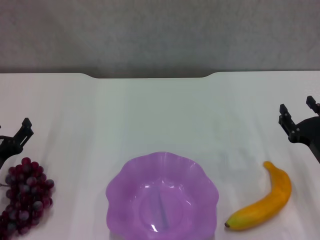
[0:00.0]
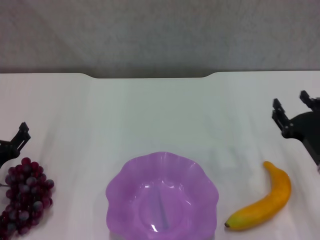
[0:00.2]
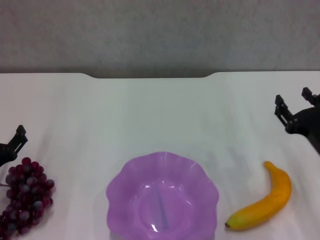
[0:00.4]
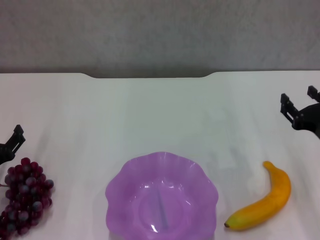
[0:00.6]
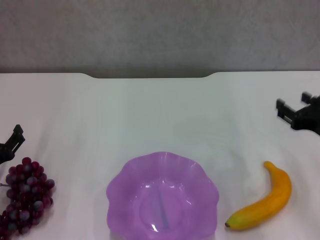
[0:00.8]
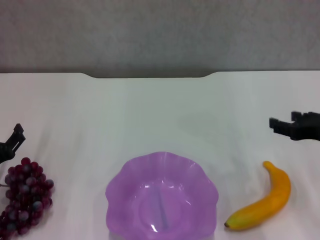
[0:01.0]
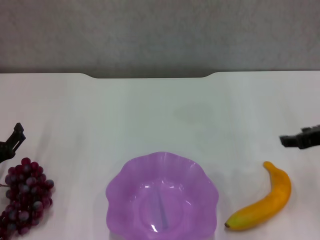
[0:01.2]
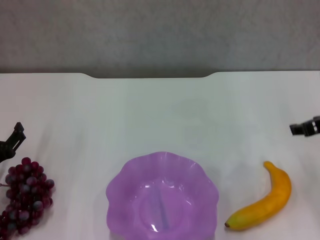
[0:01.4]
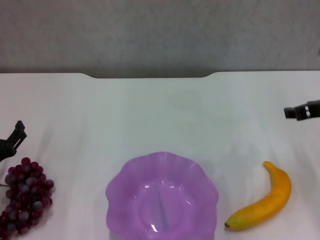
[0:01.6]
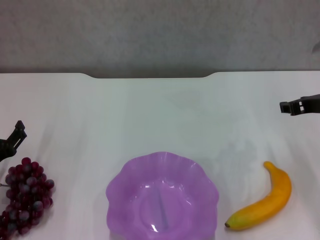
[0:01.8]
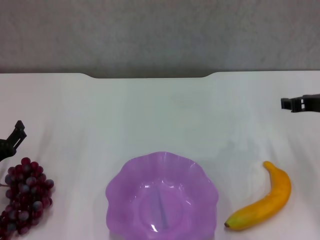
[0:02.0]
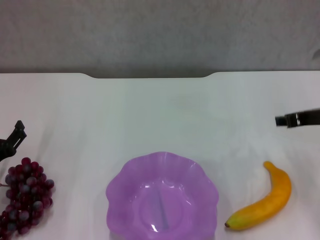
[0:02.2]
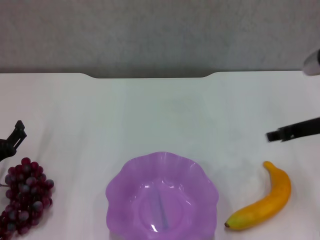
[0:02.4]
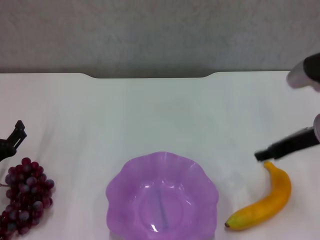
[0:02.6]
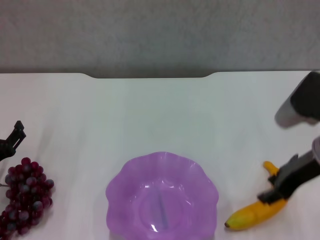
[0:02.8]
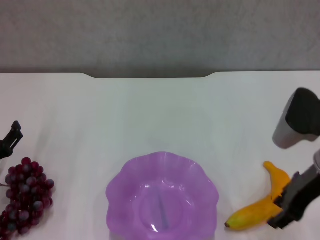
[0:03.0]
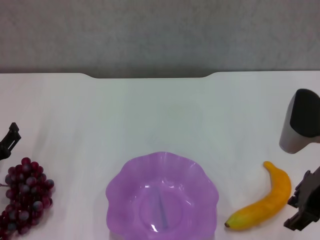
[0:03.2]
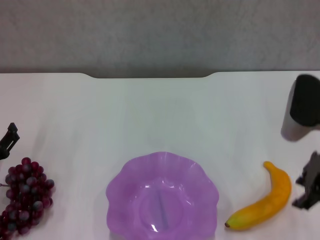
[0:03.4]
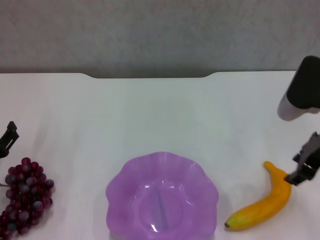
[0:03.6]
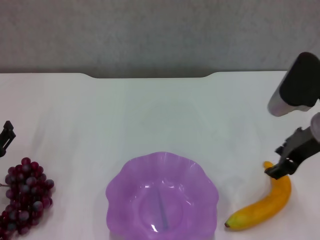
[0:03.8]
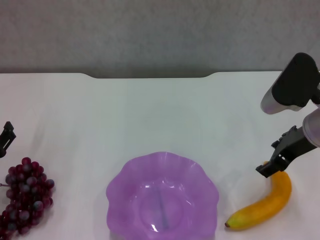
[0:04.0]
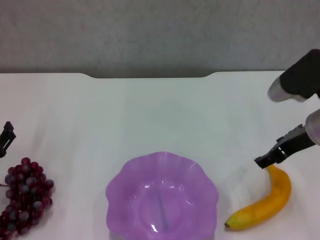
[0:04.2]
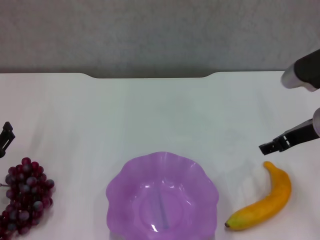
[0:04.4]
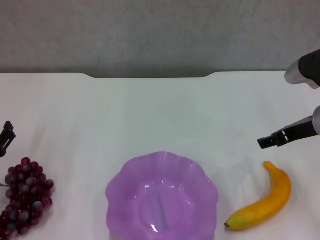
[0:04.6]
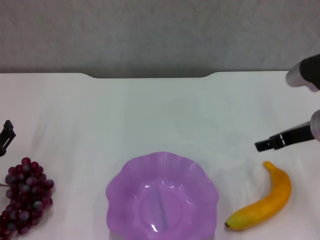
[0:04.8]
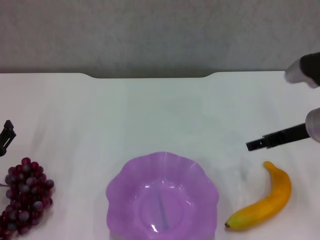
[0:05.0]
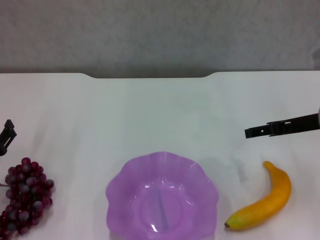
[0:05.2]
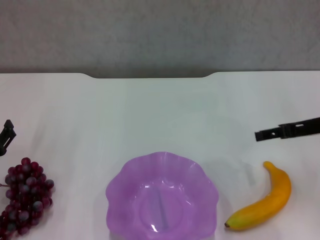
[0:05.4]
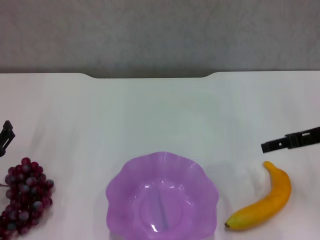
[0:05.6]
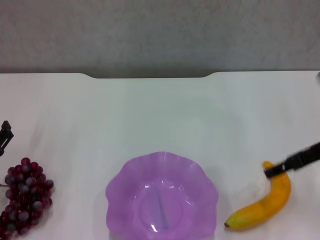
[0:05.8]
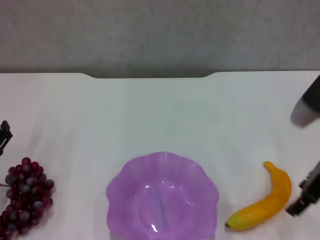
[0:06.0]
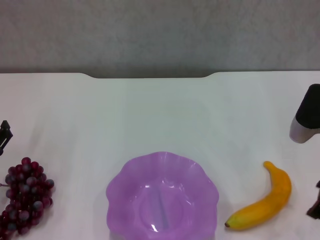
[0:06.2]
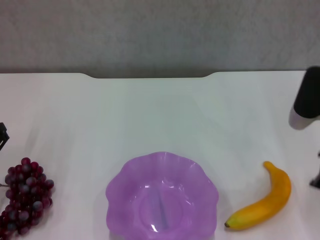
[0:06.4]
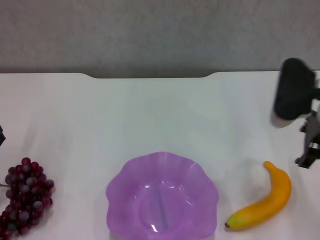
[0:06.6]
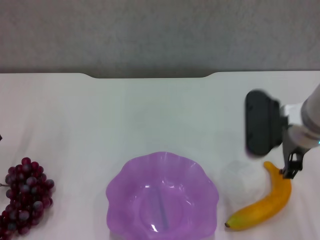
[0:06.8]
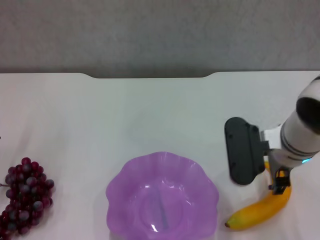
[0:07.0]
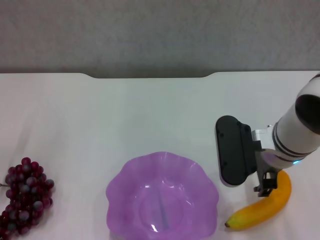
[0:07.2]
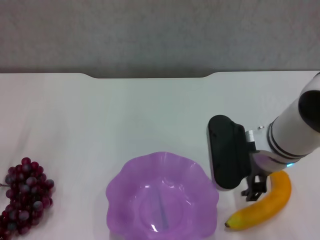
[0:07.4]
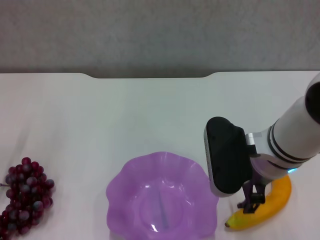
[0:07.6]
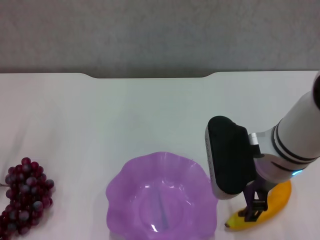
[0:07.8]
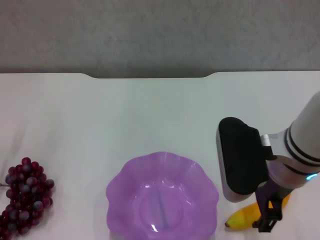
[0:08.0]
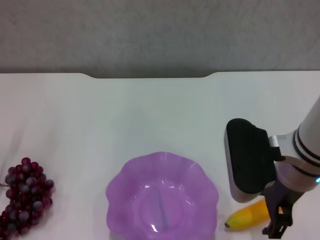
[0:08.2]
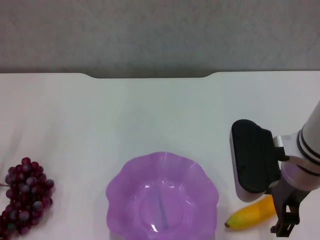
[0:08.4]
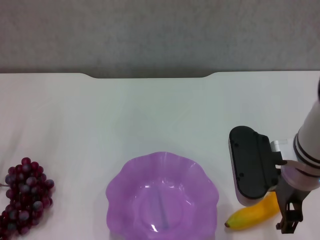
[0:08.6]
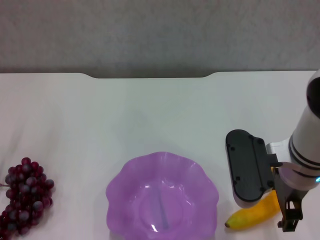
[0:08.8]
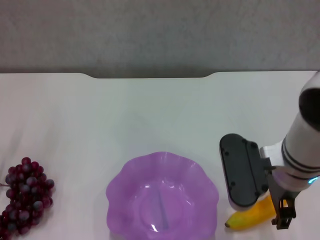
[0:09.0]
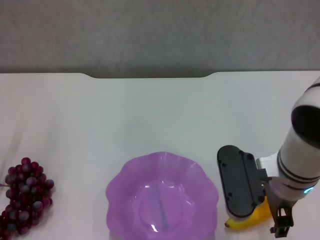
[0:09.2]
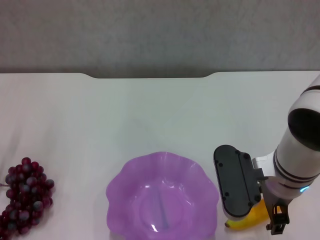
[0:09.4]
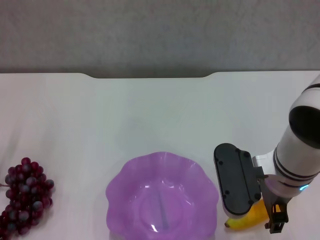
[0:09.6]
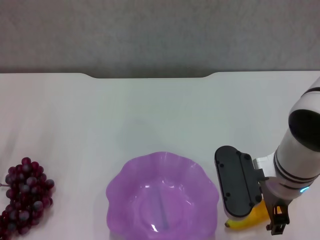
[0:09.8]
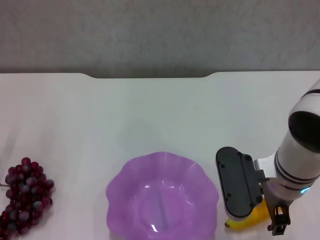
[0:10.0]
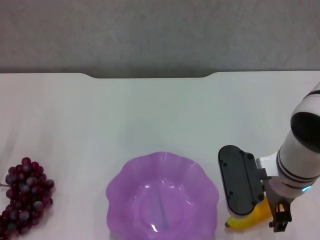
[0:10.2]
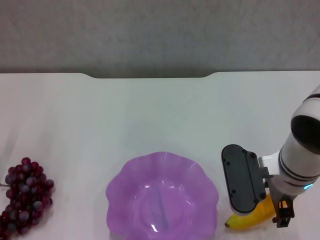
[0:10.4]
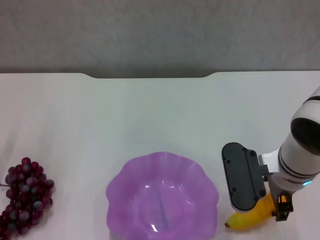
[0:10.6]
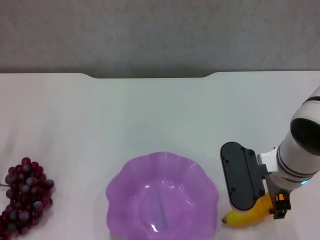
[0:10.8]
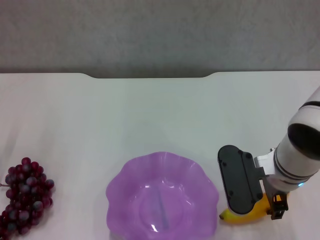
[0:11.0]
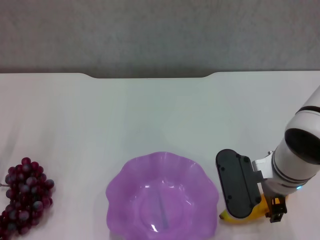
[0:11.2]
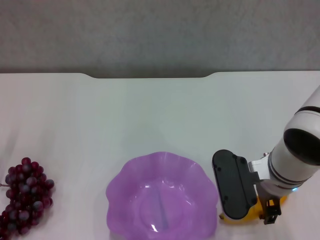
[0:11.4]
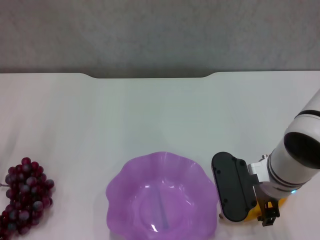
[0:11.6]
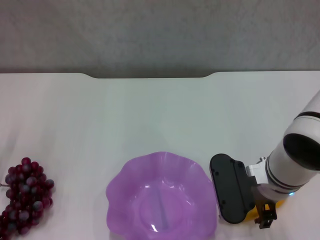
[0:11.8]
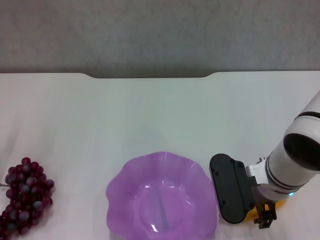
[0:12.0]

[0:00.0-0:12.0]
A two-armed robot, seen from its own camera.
0:00.0 to 0:01.6: The right gripper heads upward and forward, covering approximately 15 cm.
0:01.6 to 0:03.0: The right gripper ends up approximately 5 cm from where it was.
0:03.0 to 0:04.4: The right gripper opens.
0:06.0 to 0:07.6: The right gripper is displaced to the left by some 15 cm.
0:07.6 to 0:10.4: There are only small adjustments of the grippers.
0:10.4 to 0:12.0: The grippers move only a little.

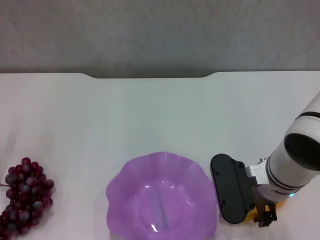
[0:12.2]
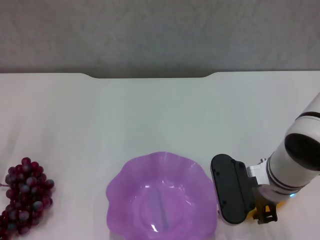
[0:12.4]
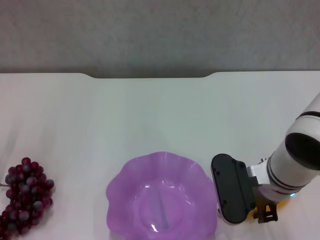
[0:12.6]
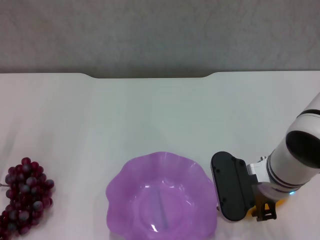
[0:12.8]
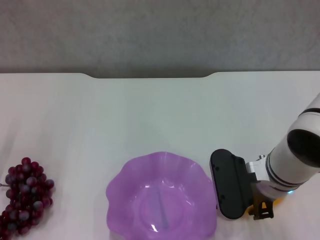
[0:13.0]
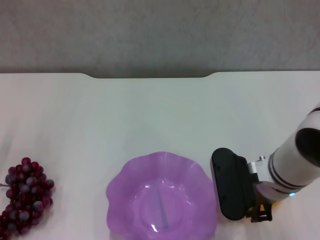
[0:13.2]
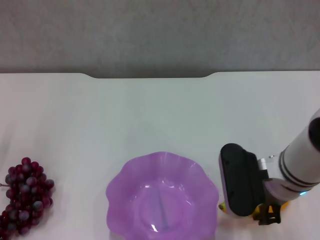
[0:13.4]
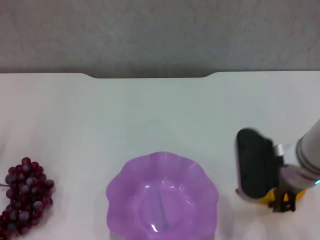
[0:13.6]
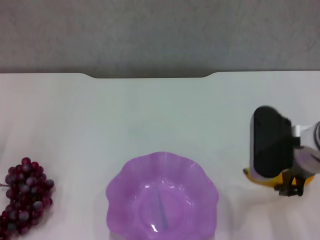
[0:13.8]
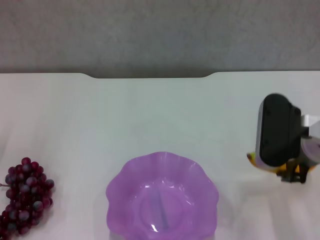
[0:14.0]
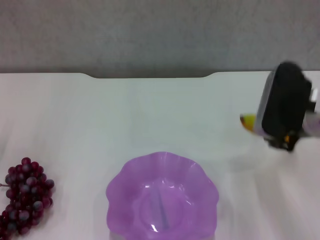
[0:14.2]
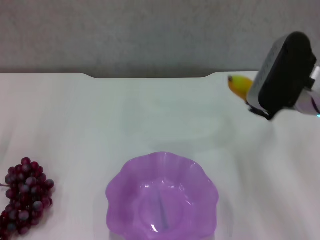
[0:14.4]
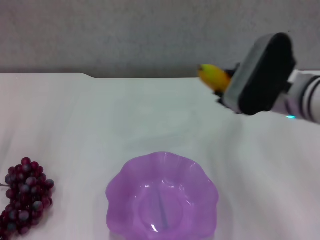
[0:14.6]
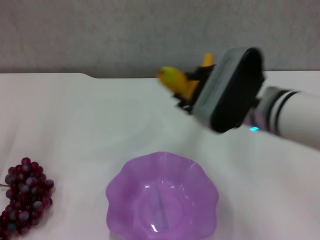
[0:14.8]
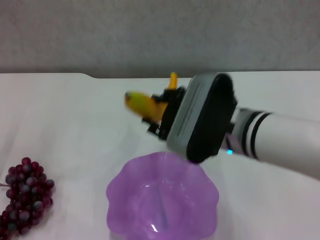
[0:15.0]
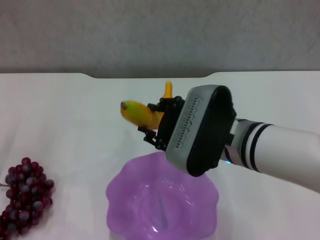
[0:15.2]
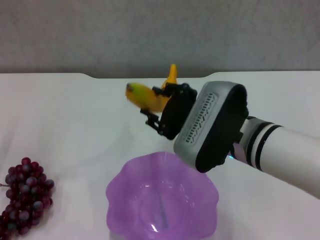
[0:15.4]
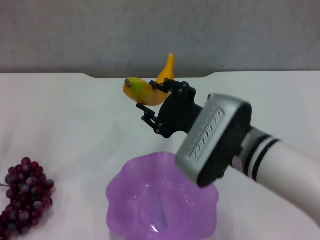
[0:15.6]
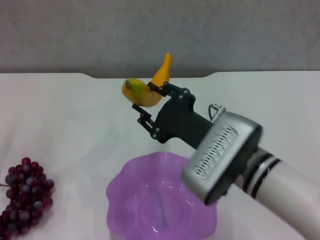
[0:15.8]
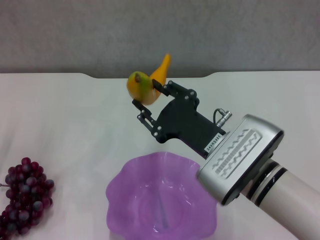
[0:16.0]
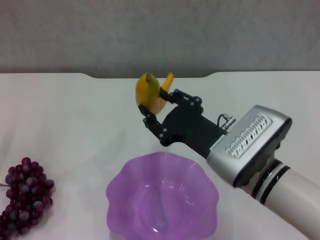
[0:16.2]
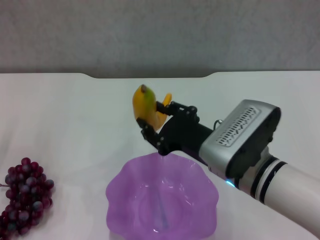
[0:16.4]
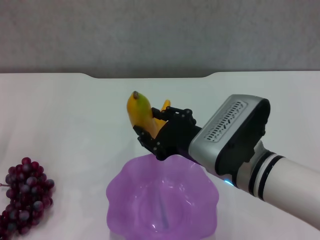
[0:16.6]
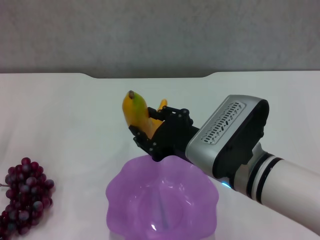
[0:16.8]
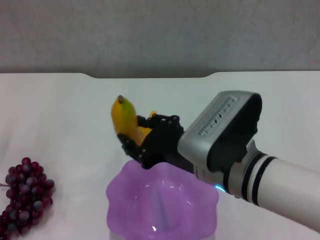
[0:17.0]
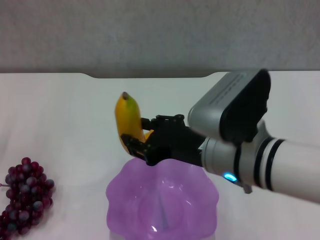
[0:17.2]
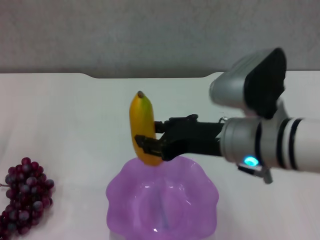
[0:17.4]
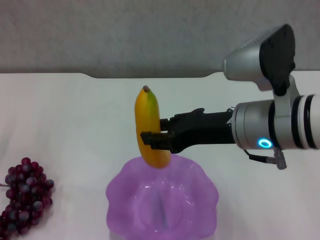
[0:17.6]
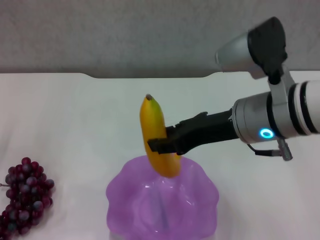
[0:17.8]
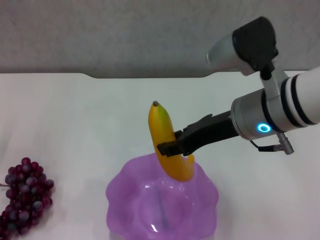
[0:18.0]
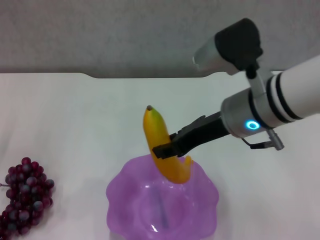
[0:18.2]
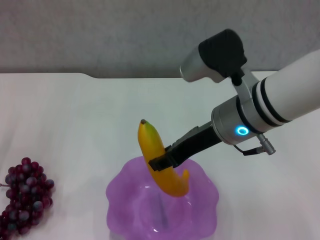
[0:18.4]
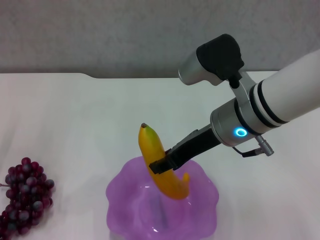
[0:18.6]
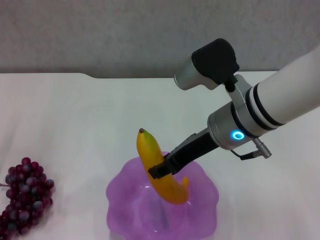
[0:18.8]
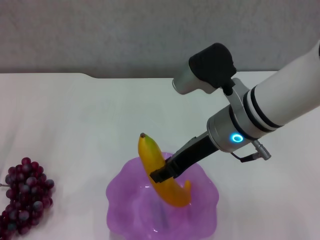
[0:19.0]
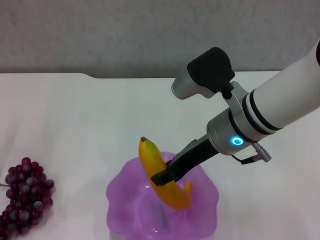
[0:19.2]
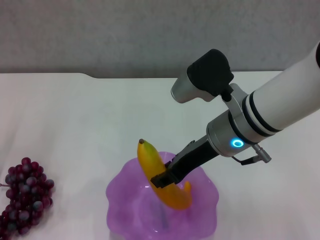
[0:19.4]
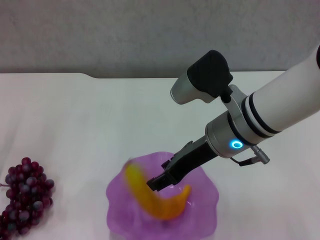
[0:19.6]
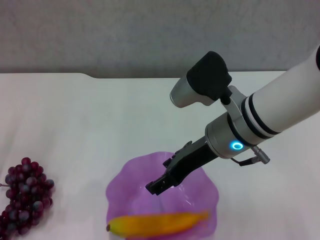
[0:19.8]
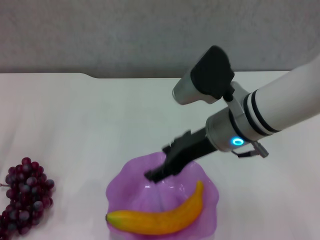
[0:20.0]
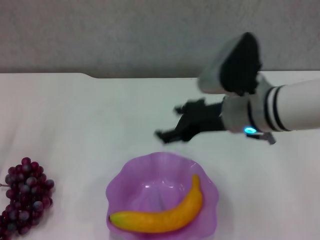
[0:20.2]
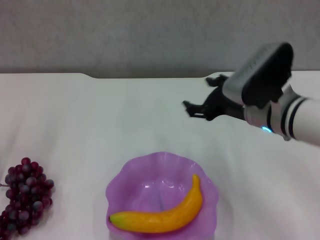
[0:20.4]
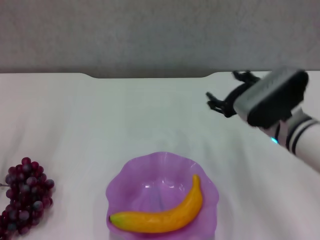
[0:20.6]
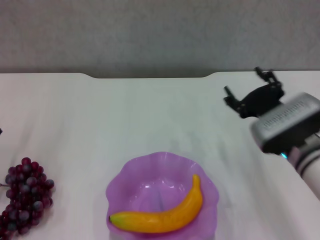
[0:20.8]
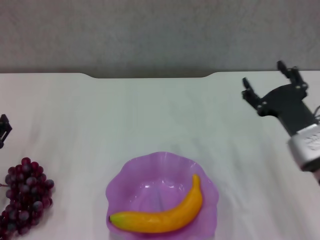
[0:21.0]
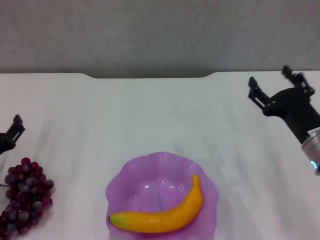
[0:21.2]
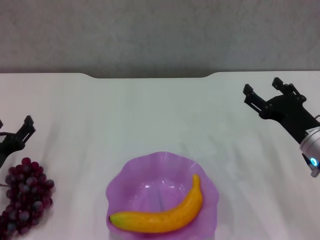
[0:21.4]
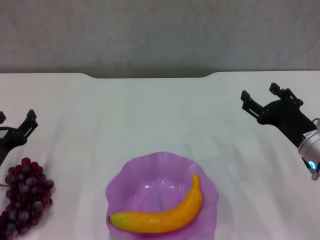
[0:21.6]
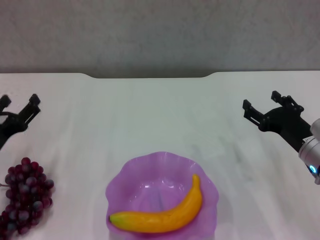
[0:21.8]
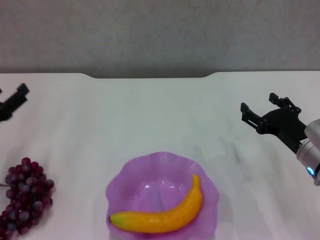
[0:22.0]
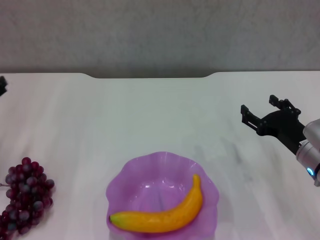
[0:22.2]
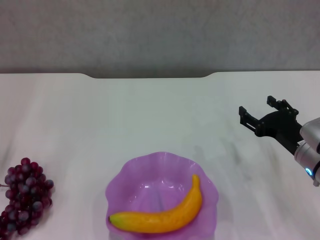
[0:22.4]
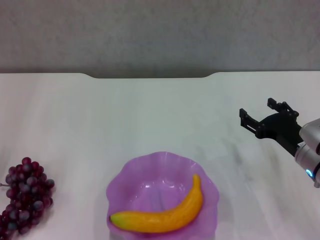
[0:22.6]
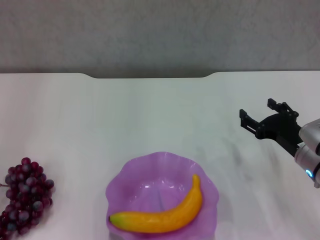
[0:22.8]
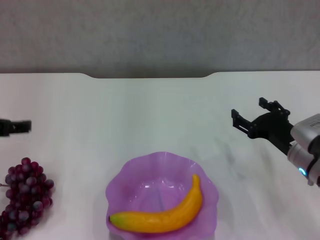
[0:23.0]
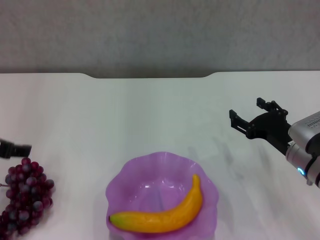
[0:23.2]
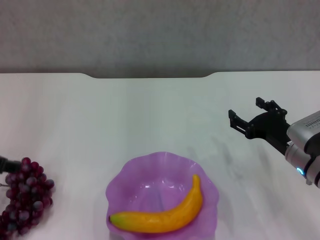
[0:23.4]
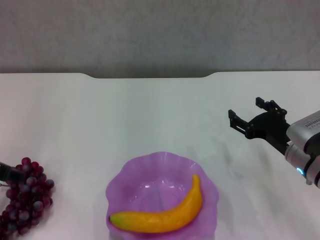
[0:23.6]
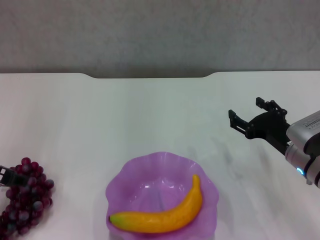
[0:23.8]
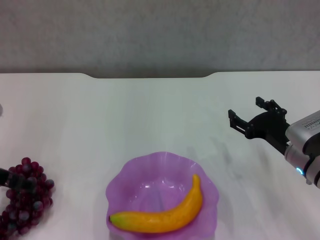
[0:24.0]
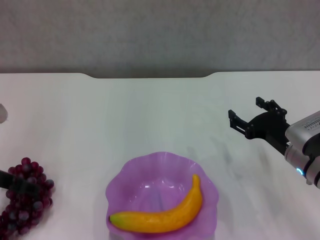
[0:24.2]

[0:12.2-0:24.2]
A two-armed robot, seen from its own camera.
Step, 0:12.6 to 0:20.0: Place the banana in the purple plate with right gripper.
0:12.2 to 0:13.8: The right gripper goes roughly 5 cm upward, and closes.
0:13.8 to 0:15.2: The right gripper goes approximately 10 cm to the left.
0:16.6 to 0:18.2: The right gripper travels upward and forward by some 10 cm.
0:18.2 to 0:19.8: The grippers stay close to where they were, moving slightly.
0:19.8 to 0:21.2: The right gripper travels to the right and downward by some 20 cm, and opens.
0:21.2 to 0:22.6: The left gripper moves upward, roughly 15 cm.
0:22.6 to 0:24.2: The left gripper ends up roughly 5 cm from where it was.
